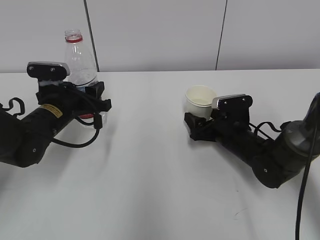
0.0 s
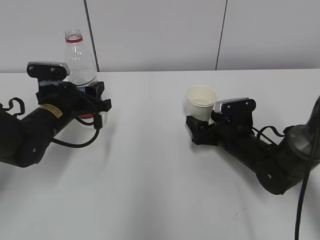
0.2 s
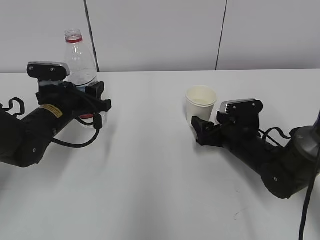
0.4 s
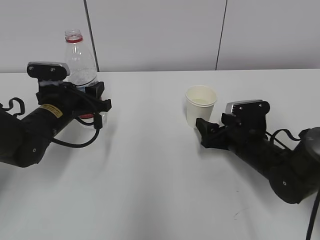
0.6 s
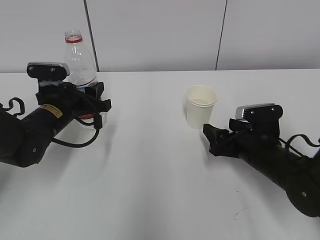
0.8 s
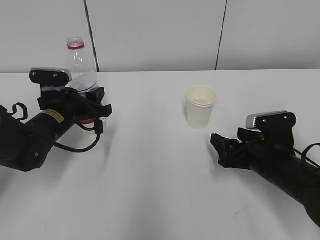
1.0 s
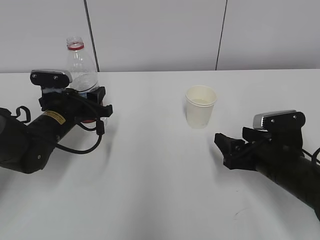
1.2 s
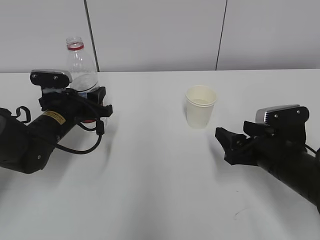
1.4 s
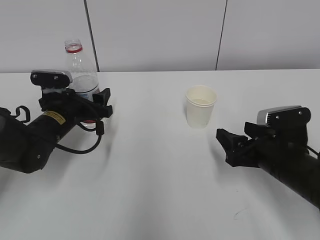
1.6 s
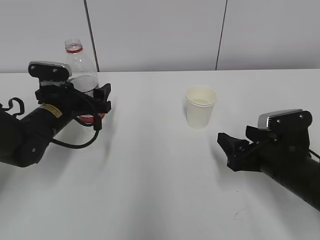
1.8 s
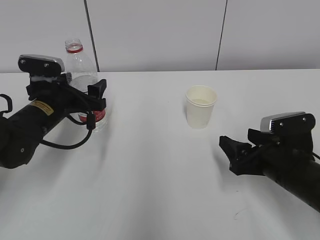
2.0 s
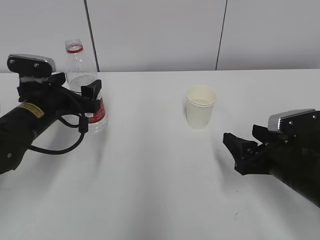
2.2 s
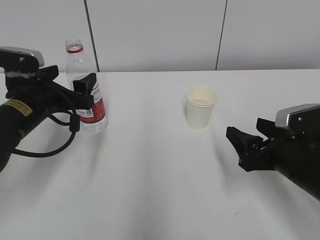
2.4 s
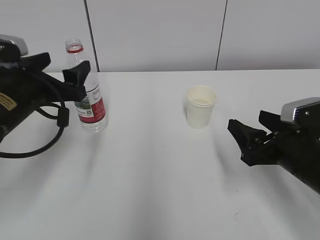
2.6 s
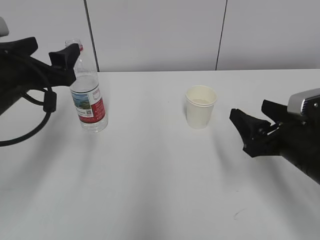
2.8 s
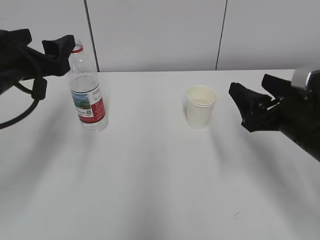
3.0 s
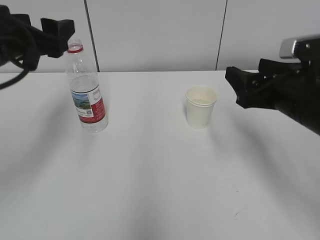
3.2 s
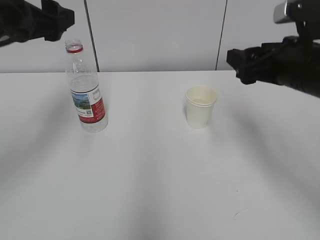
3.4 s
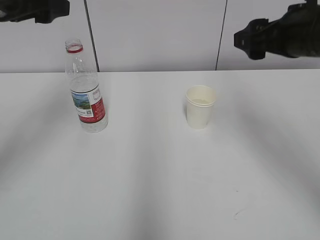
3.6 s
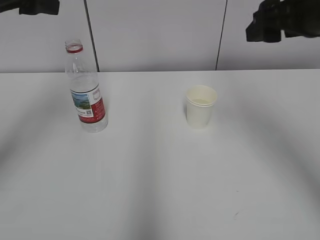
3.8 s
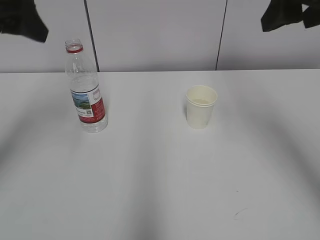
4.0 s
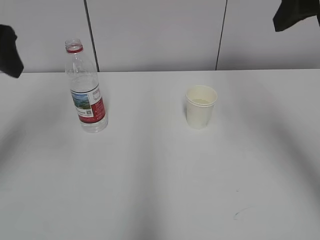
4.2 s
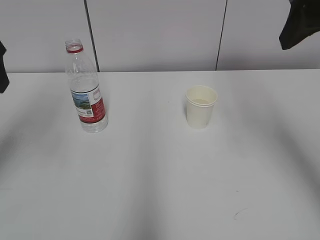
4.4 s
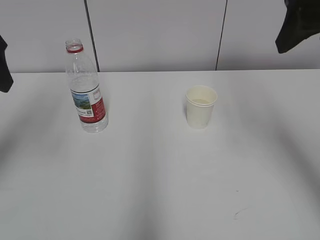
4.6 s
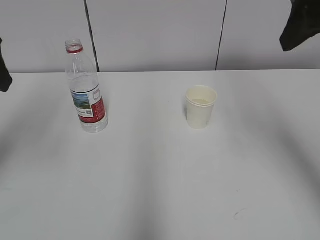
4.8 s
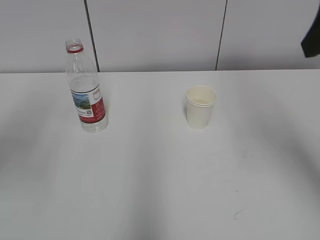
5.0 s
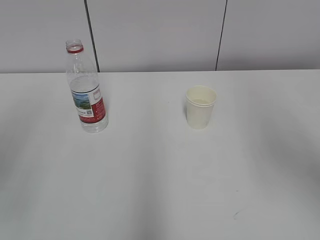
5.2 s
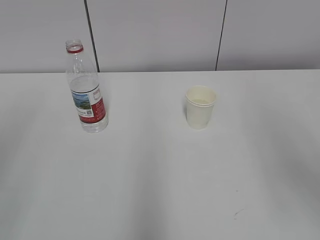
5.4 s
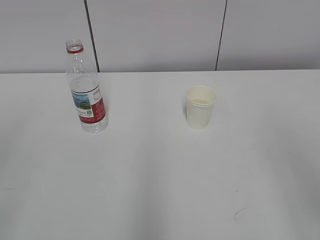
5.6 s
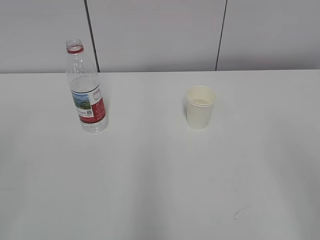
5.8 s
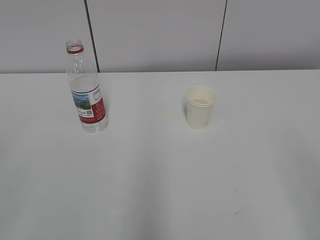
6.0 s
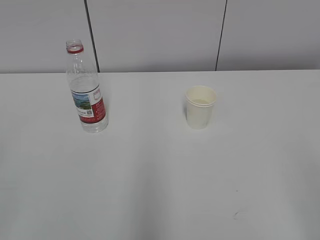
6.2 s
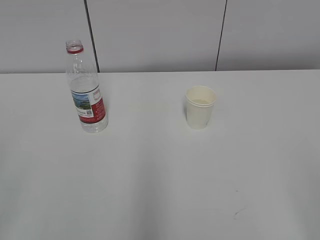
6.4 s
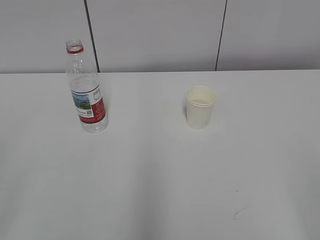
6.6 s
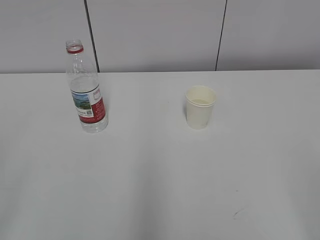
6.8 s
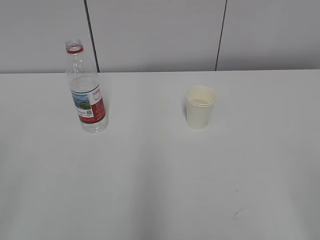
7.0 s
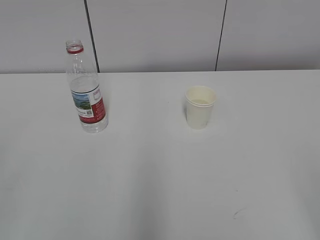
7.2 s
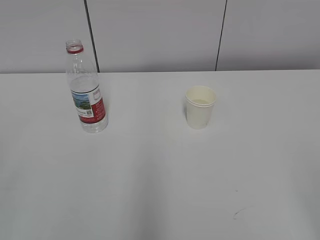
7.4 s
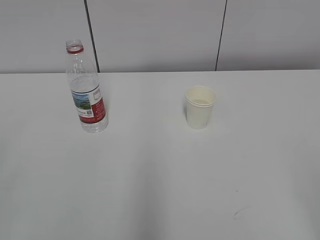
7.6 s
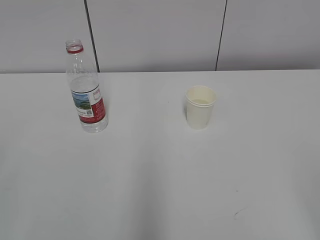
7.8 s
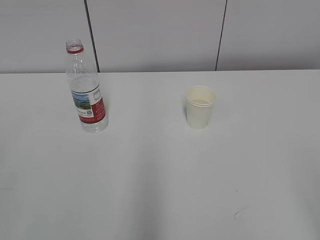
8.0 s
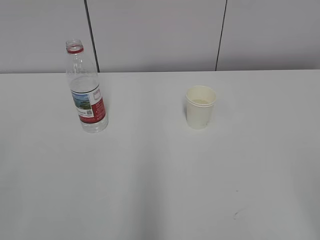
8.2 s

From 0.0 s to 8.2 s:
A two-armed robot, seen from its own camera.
From 0.0 s to 1.6 s: The left gripper opens up; the right gripper shifts some 15 cm backward and upward.
From 1.6 s to 3.2 s: The left gripper goes some 20 cm upward and backward, while the right gripper is displaced upward by about 10 cm.
From 3.2 s to 5.0 s: The left gripper travels backward, upward and to the left by approximately 15 cm; the right gripper shifts approximately 20 cm upward.
From 5.0 s to 6.6 s: The right gripper travels backward and downward by some 25 cm.

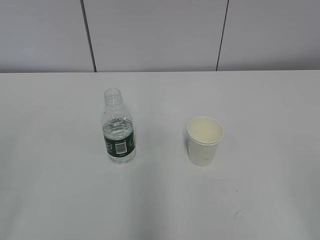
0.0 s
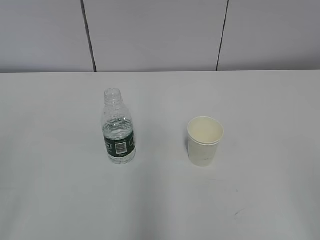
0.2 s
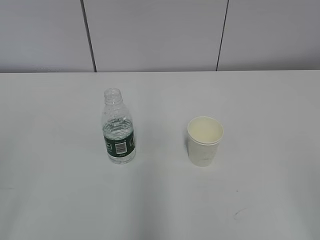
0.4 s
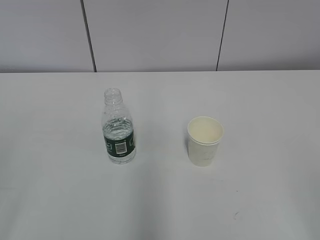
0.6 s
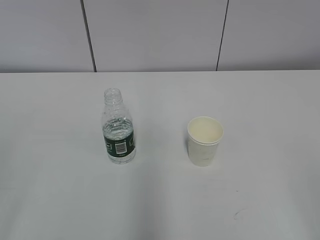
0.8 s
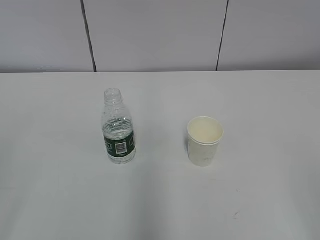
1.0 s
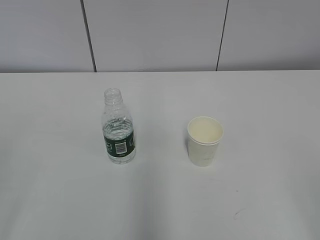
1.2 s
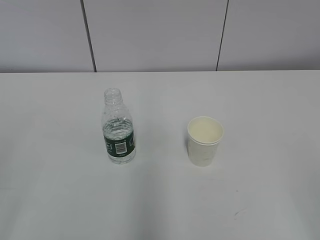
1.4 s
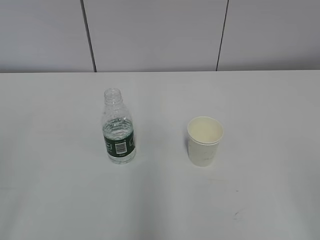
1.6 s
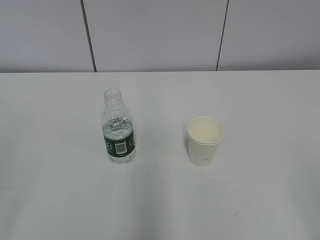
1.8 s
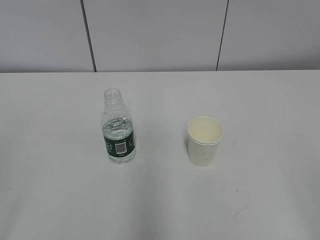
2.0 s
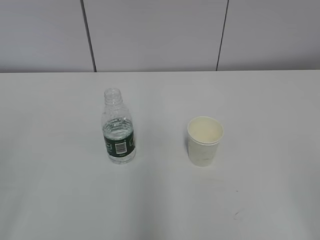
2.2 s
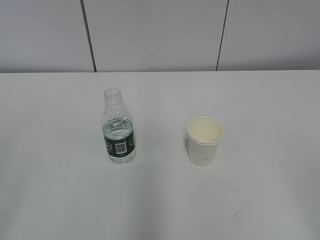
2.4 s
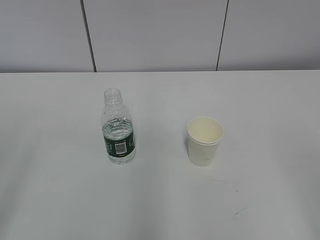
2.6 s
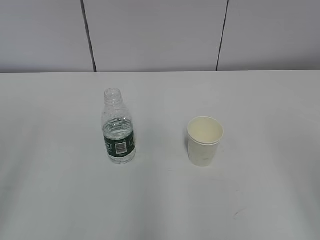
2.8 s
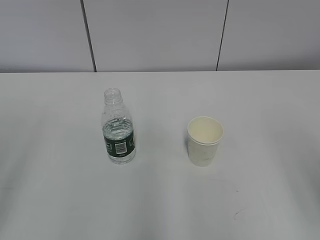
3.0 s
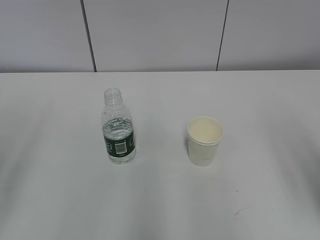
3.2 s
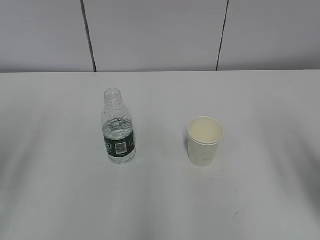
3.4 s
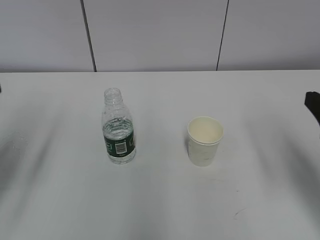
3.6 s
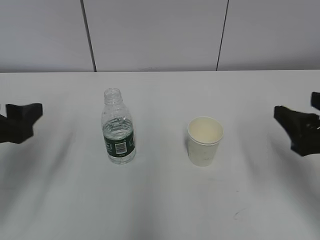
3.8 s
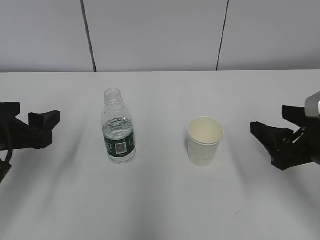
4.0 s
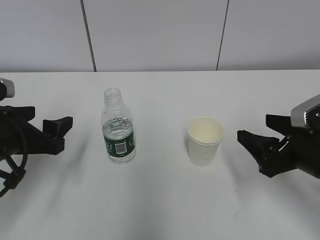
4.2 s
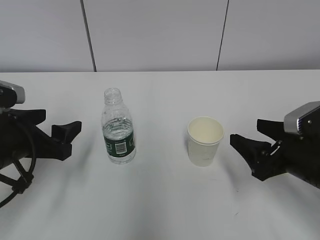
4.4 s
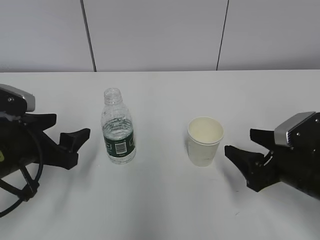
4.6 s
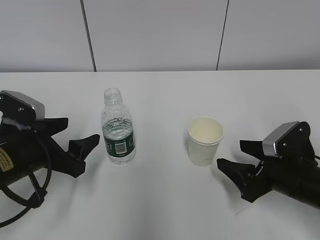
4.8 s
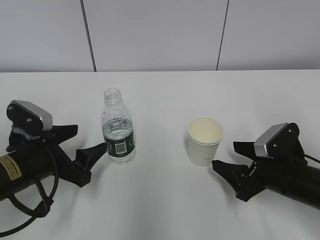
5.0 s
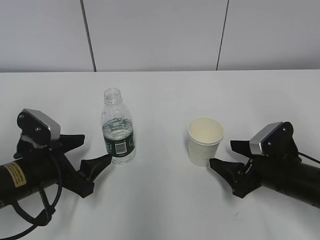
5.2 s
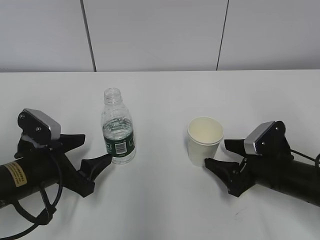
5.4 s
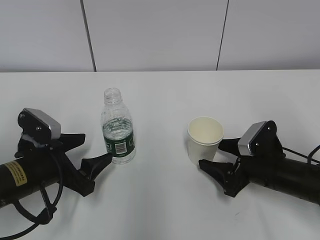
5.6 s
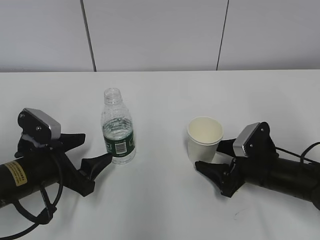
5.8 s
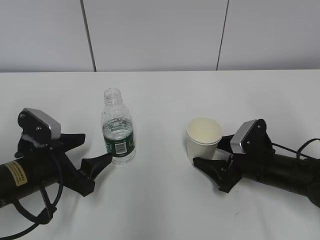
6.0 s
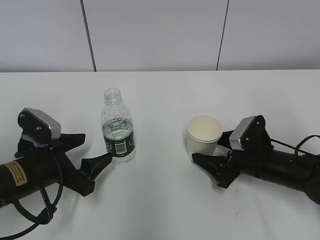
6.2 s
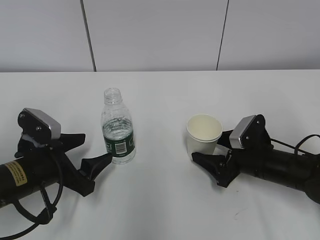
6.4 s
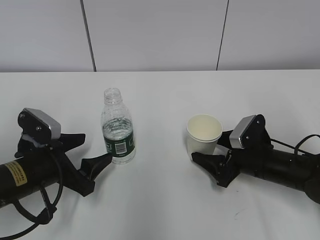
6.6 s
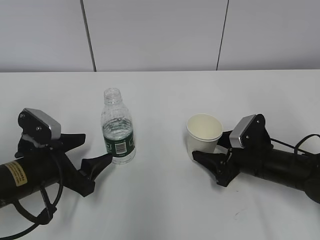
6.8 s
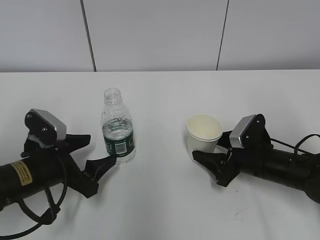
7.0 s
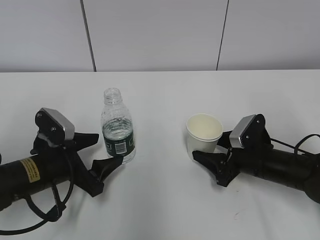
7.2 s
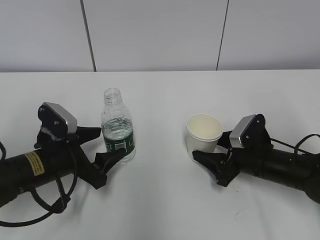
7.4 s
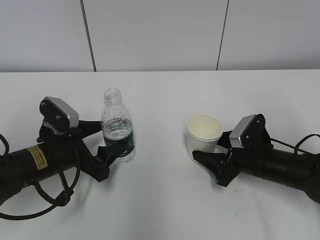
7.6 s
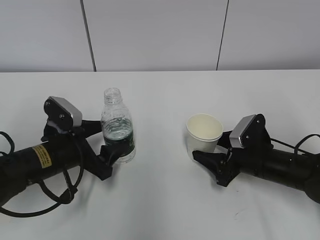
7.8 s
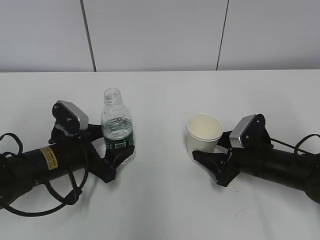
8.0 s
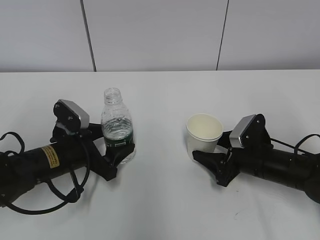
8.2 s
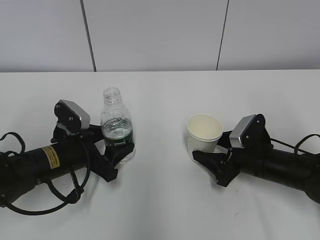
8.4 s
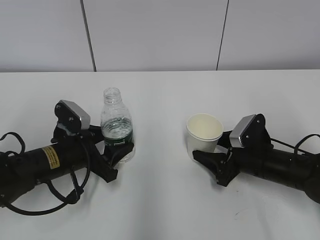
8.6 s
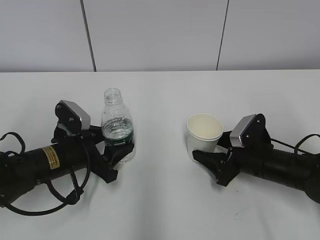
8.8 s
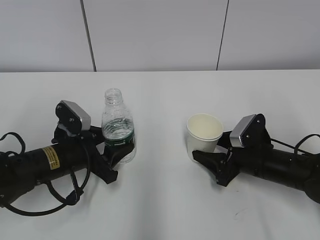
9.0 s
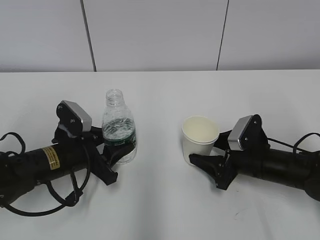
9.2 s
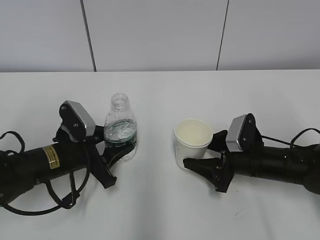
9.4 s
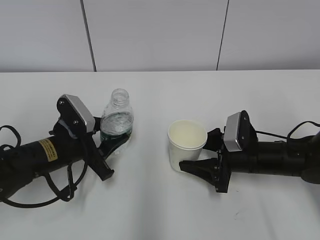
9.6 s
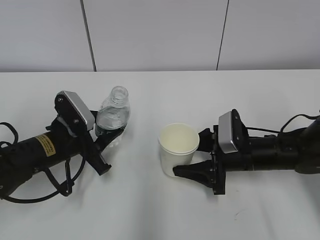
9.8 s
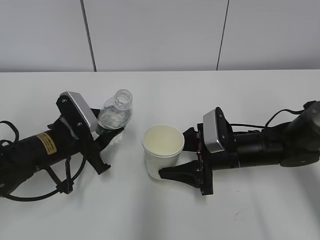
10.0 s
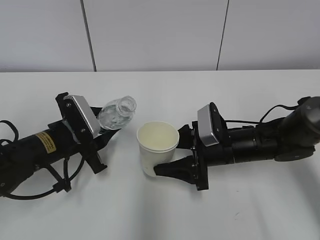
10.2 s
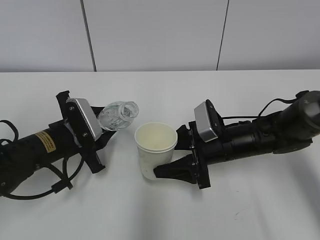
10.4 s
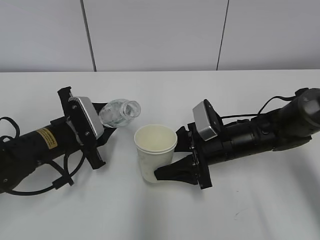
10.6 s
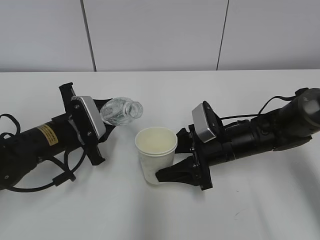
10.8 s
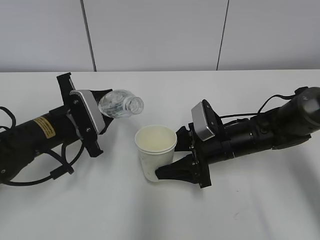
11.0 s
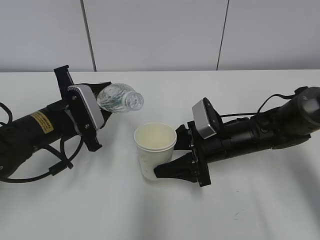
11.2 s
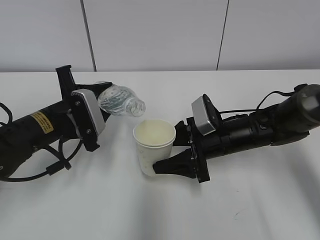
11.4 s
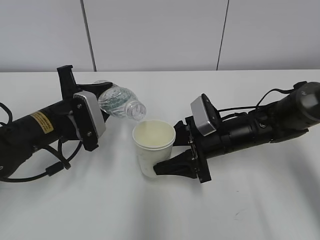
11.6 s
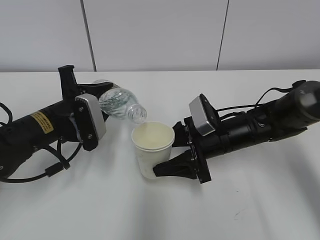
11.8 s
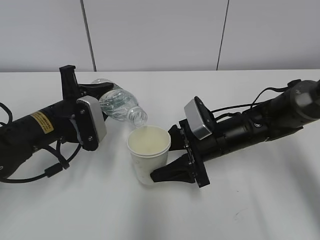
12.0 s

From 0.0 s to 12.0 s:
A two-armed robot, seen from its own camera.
Step, from 0.0 s to 7.6 s: Grab the paper cup with the right hand.
Step, from 0.0 s to 7.6 s: Grab the water bottle with the left hand.
Step, from 7.8 s to 10.4 s: Lift the paper cup with the right hand.
From 3.0 s to 4.4 s: The left gripper goes roughly 25 cm forward, downward and to the right. Meanwhile the right gripper travels downward and forward by roughly 25 cm.
From 4.4 s to 6.0 s: The left gripper is displaced downward by approximately 5 cm; the right gripper moves downward and forward, about 10 cm.
From 6.0 s to 7.6 s: The right gripper closes its fingers.
From 7.6 s to 9.0 s: The left gripper closes up.
From 9.0 s to 10.4 s: The right gripper is displaced to the left by roughly 5 cm.

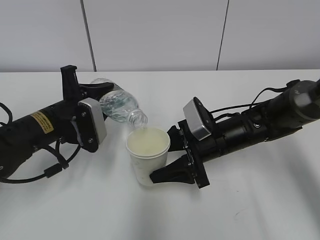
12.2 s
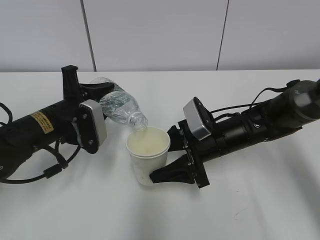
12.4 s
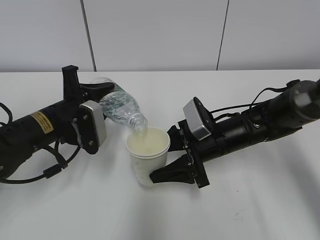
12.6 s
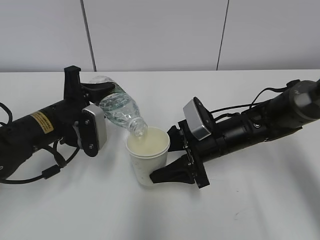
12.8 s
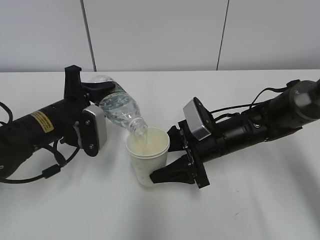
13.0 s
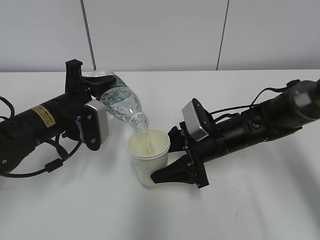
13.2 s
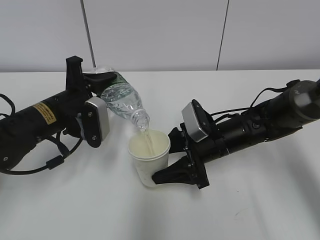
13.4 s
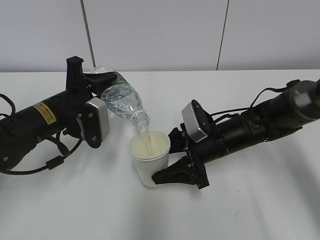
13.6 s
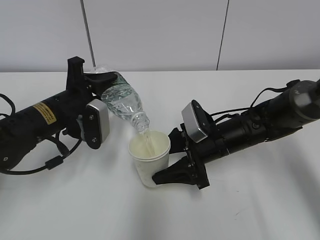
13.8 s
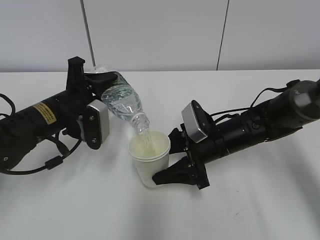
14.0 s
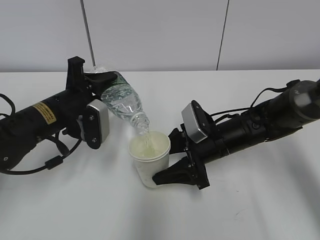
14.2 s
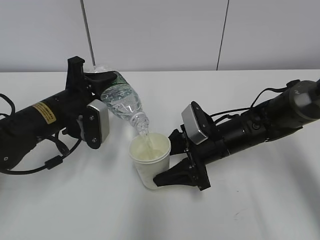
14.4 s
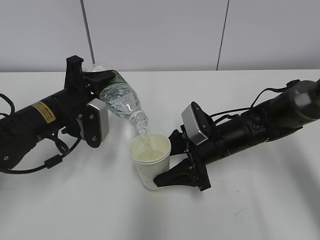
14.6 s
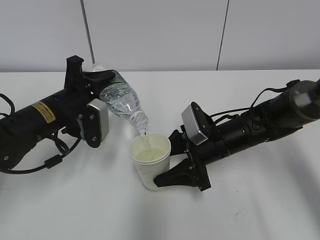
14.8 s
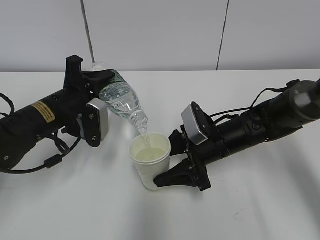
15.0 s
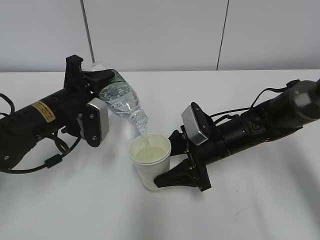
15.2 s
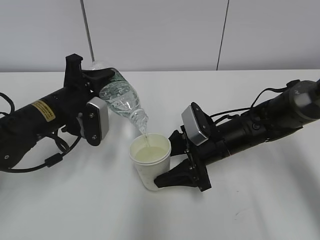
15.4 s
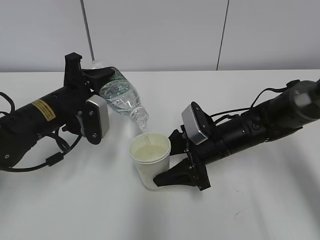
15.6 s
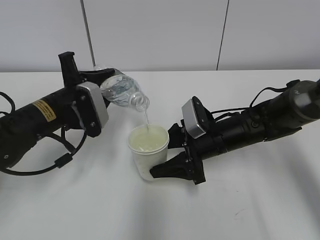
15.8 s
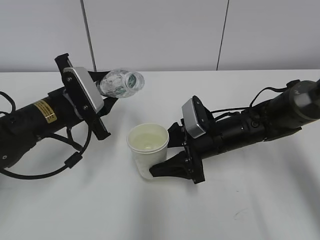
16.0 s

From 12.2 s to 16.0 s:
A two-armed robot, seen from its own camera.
Step, from 13.8 s to 15.0 s: Place the water bottle with the left hand.
From 12.2 s to 14.8 s: The grippers move only a little.
